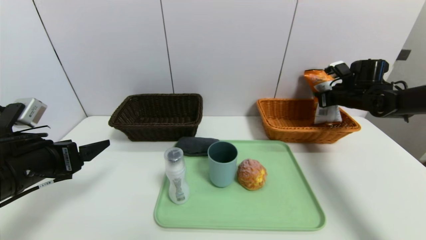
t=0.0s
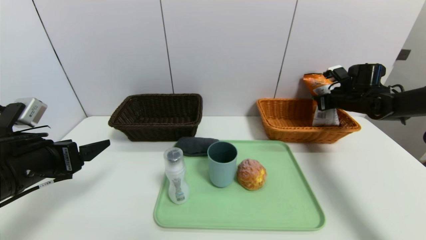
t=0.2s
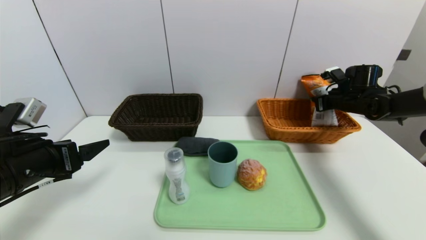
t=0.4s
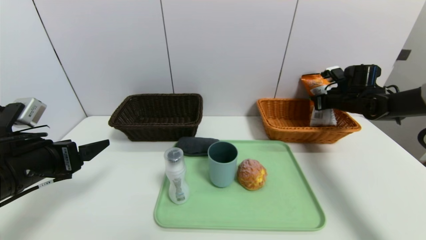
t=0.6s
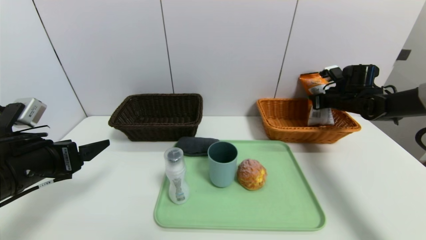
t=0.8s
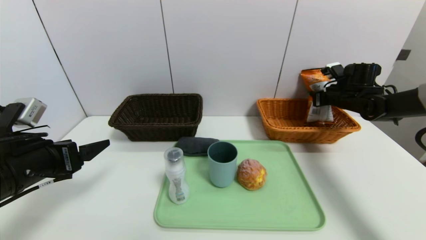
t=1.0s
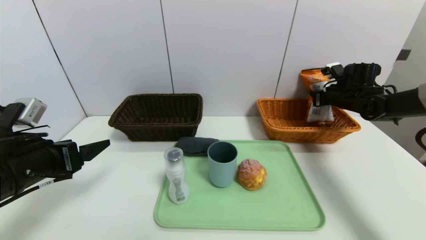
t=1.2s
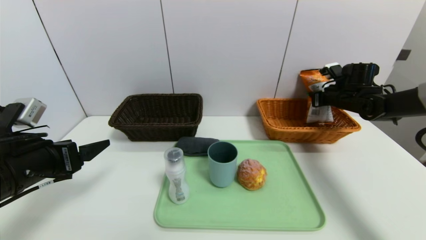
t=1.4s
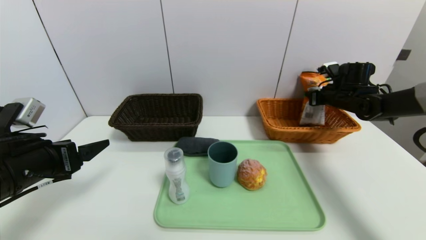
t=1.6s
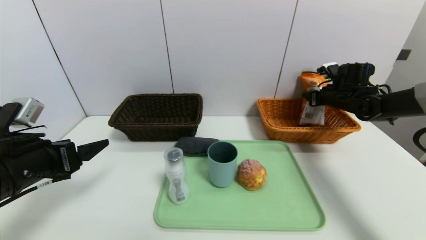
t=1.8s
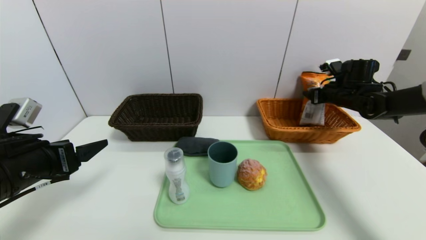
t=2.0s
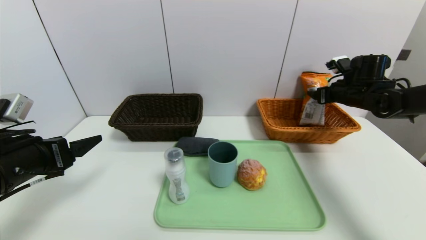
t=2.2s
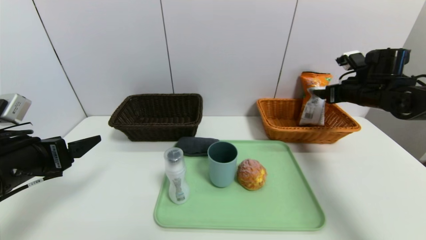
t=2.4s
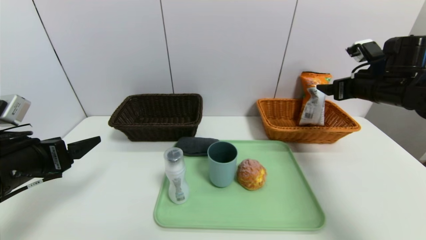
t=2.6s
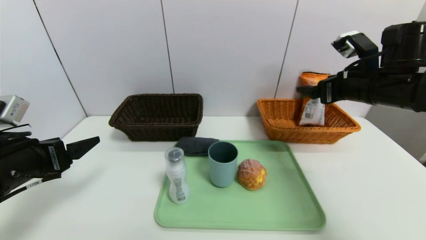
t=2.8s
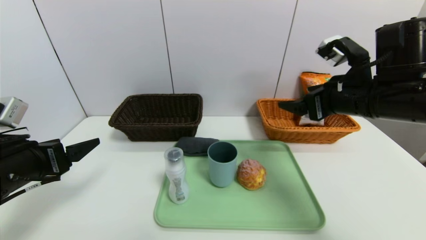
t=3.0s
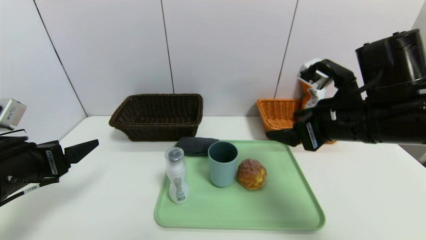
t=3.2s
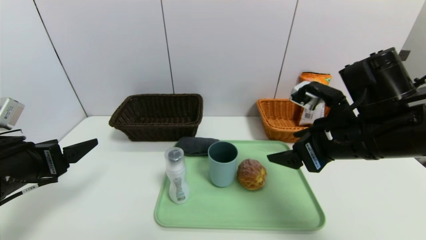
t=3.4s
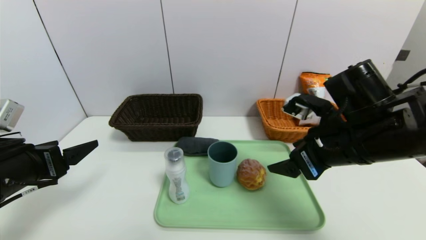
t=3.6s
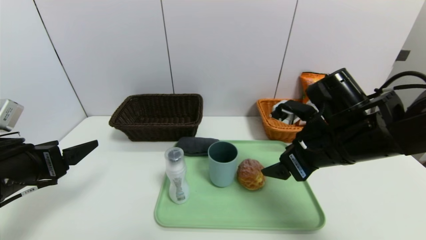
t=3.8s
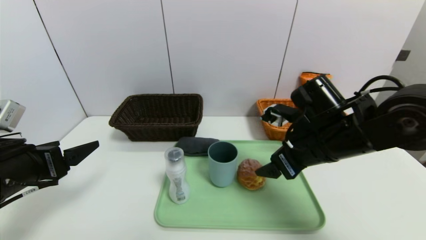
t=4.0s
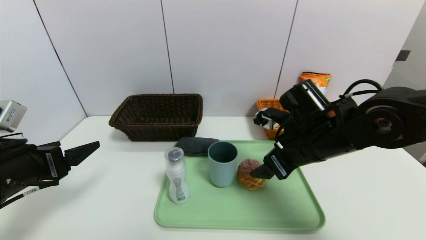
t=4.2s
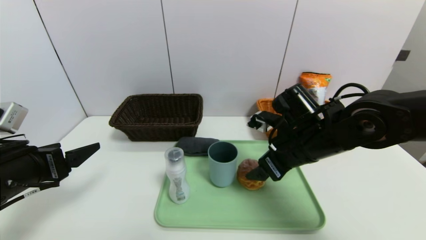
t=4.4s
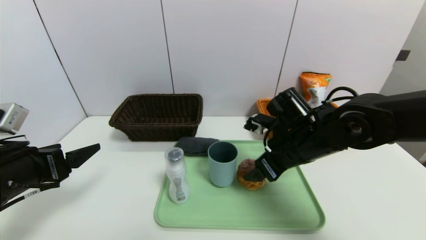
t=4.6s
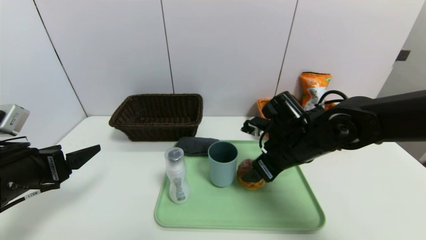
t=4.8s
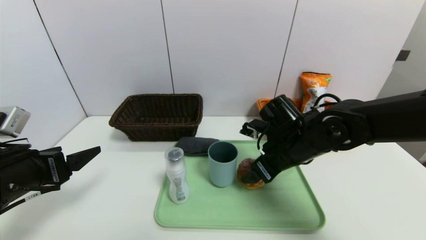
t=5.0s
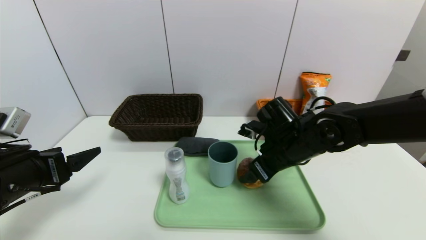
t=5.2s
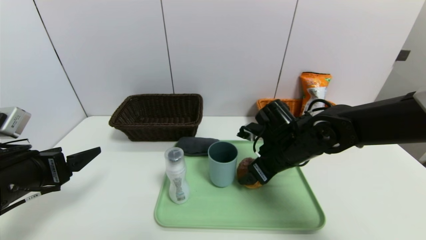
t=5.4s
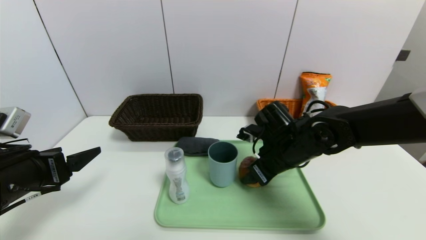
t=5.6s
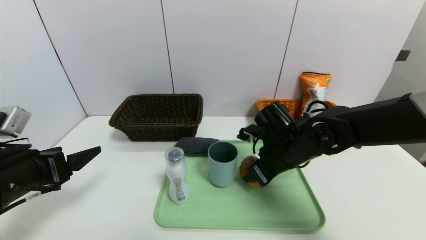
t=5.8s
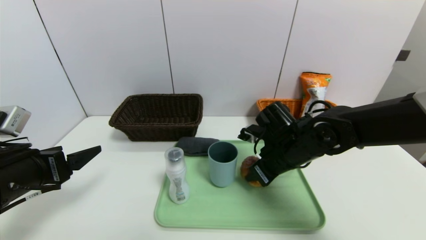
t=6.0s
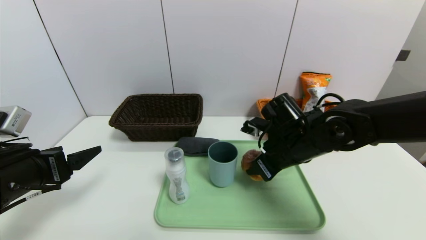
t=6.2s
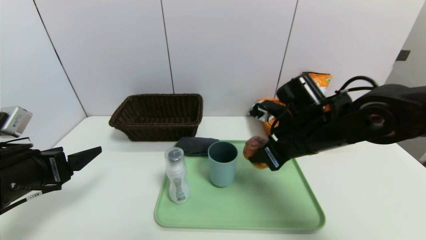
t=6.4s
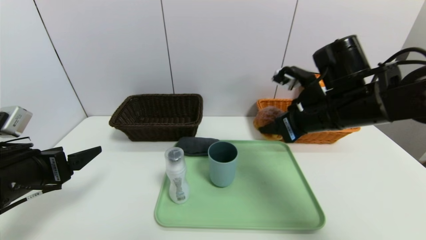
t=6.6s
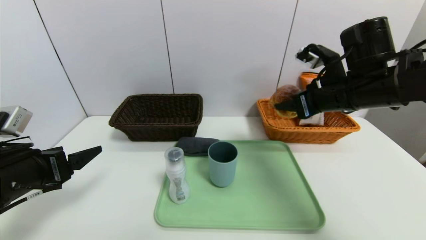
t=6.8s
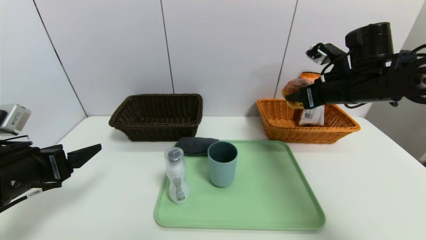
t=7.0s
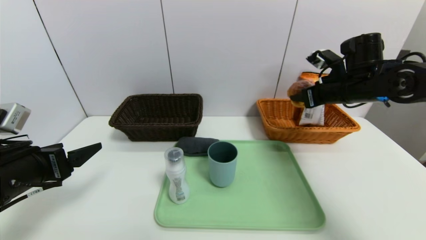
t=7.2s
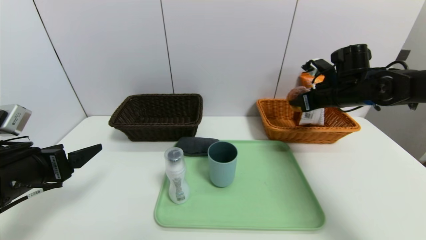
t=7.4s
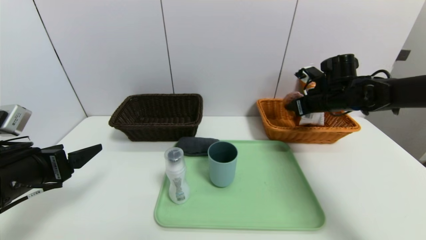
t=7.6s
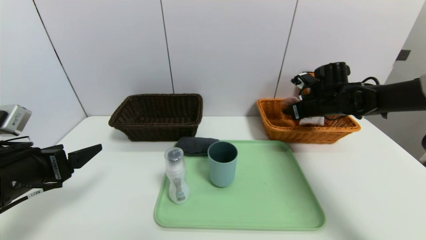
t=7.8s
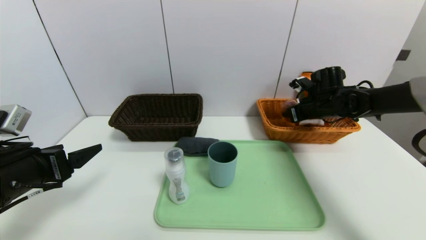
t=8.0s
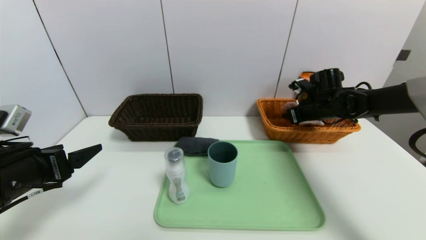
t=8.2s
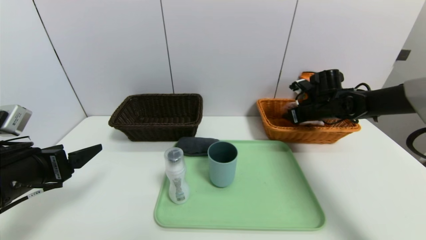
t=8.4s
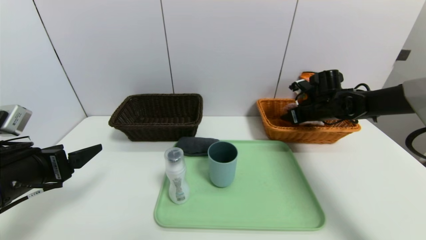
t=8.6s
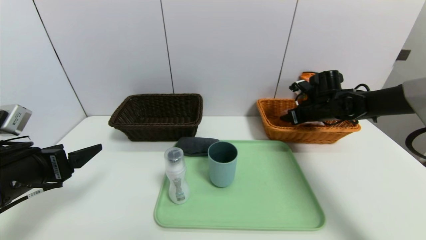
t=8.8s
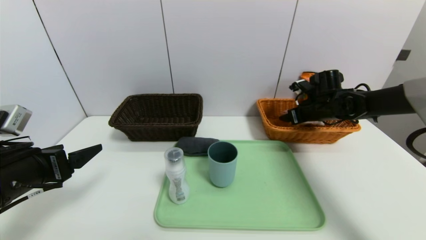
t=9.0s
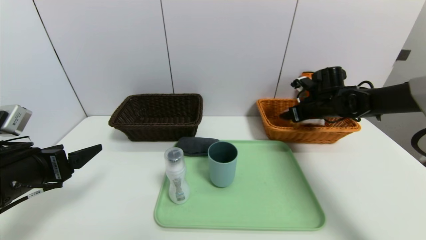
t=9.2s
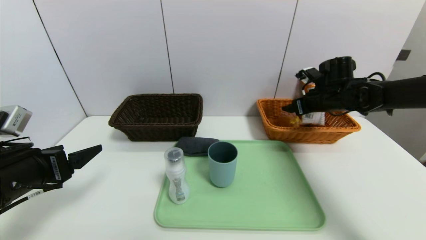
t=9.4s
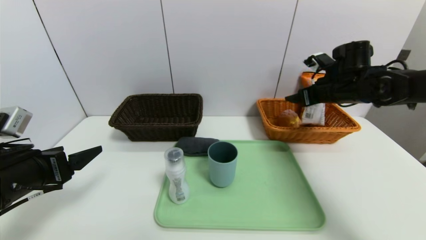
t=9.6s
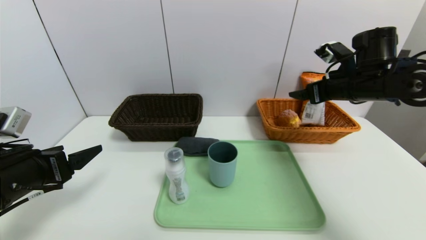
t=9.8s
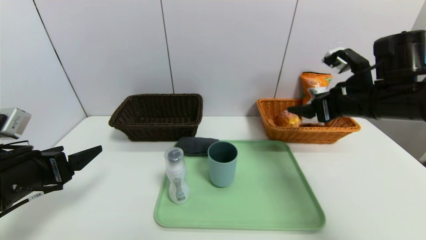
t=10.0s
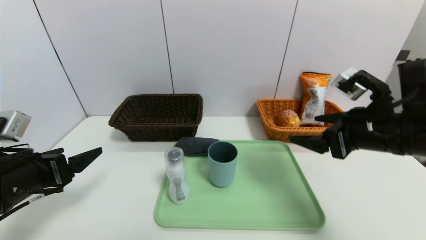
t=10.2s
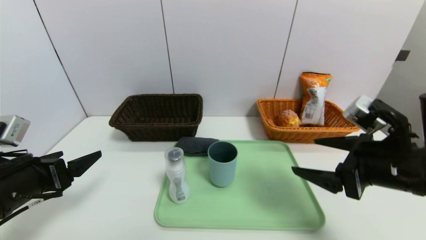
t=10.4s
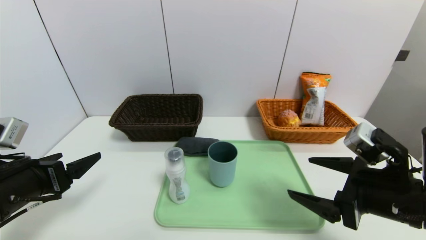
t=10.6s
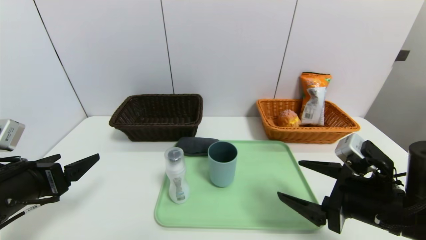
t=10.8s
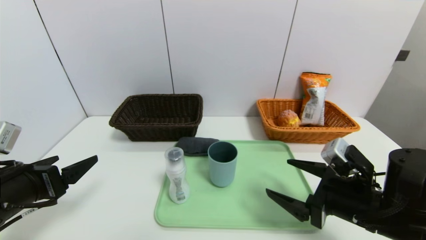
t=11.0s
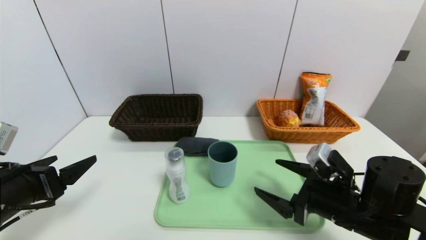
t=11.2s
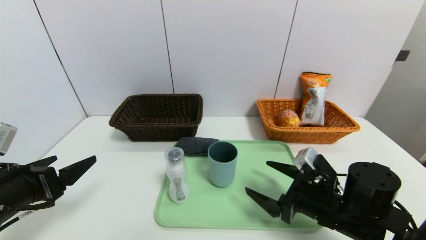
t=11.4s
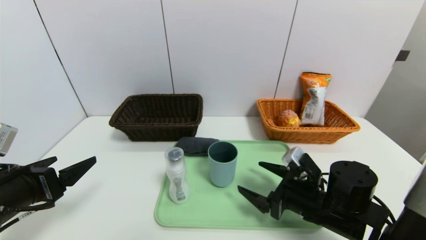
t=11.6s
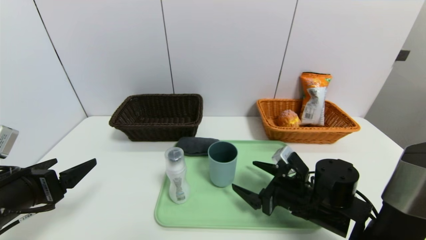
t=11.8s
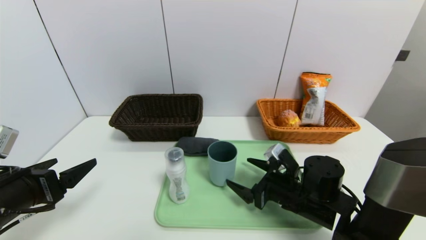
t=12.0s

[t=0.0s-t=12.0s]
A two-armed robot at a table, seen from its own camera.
Task of the whole recording: place the food in the right basket with the right gripper, and place the non food items in the left basket with the left gripper.
Step, t=0.0s to t=2.6s: Grasp the cookie and put it in the right basket.
Step, t=2.8s to t=9.8s: Grasp the round bread and put it in the right basket.
t=0.0s to t=1.6s: The right gripper opens up.
t=1.6s to t=3.0s: The right gripper is displaced backward, to the left and upward by some 25 cm, and opens up.
t=3.0s to t=4.4s: The right gripper heads downward and to the left, covering some 10 cm.
t=4.4s to t=6.0s: The right gripper closes up.
t=6.0s to t=7.6s: The right gripper heads to the right and forward, covering approximately 20 cm.
t=7.6s to t=9.0s: The right gripper opens.
t=9.0s to t=10.4s: The right gripper shifts about 25 cm backward.
t=10.4s to t=12.0s: The right gripper shifts about 20 cm downward, to the left and forward.

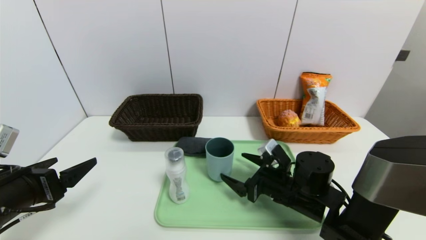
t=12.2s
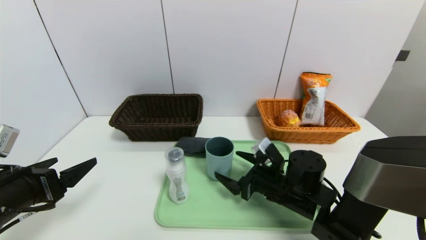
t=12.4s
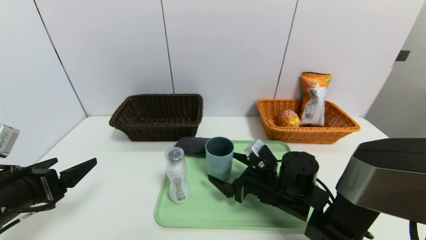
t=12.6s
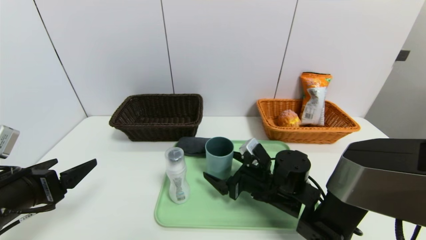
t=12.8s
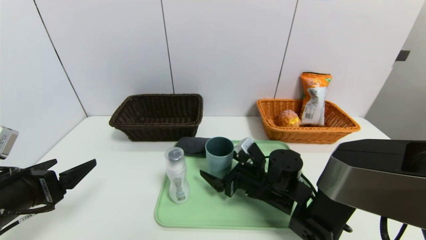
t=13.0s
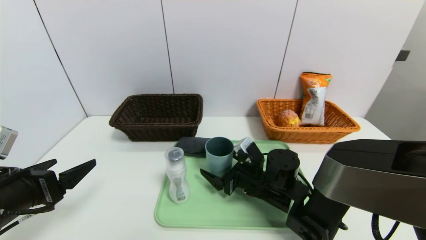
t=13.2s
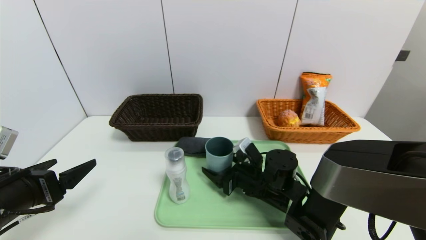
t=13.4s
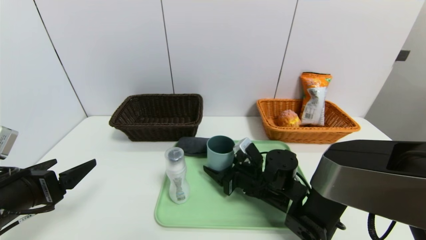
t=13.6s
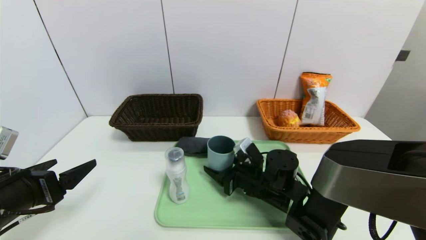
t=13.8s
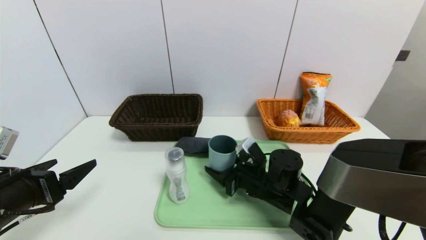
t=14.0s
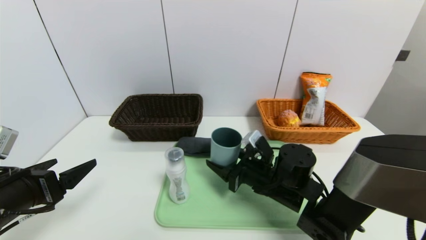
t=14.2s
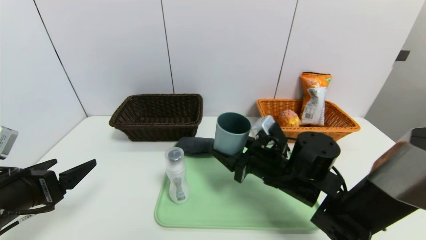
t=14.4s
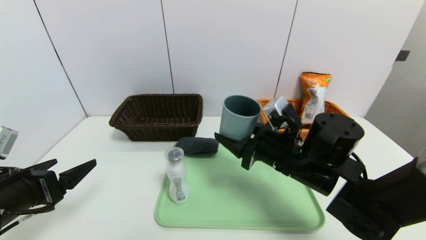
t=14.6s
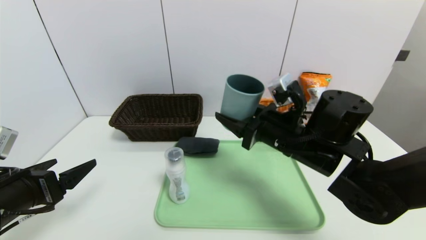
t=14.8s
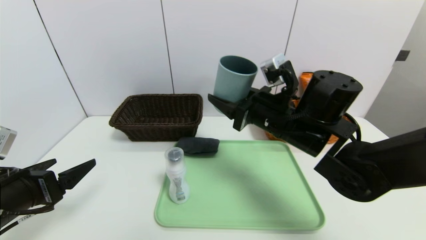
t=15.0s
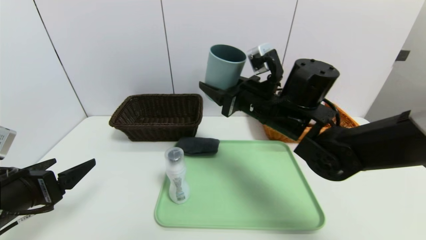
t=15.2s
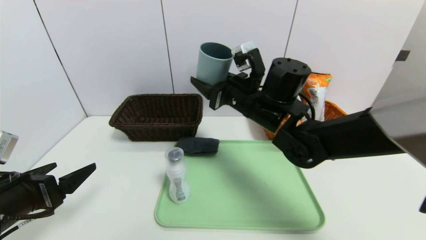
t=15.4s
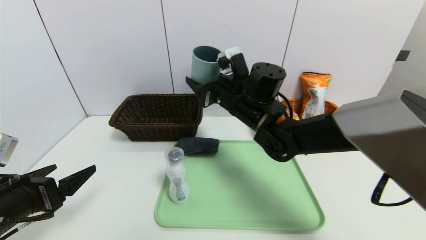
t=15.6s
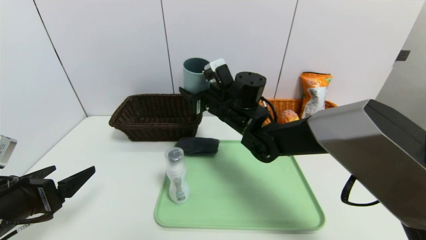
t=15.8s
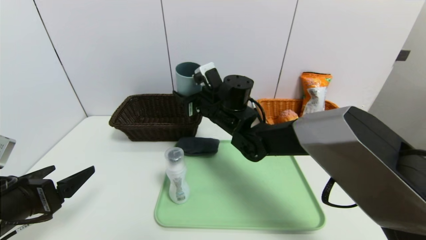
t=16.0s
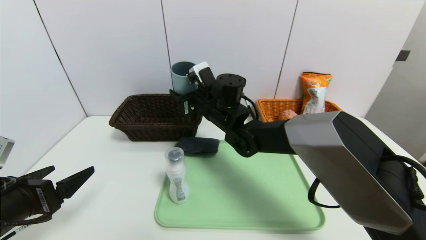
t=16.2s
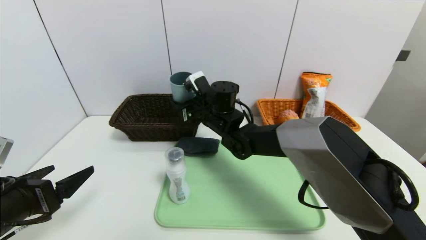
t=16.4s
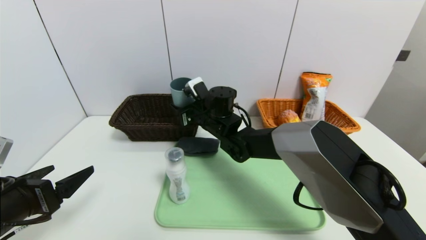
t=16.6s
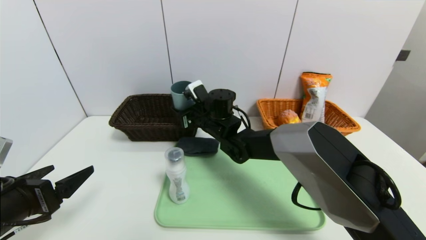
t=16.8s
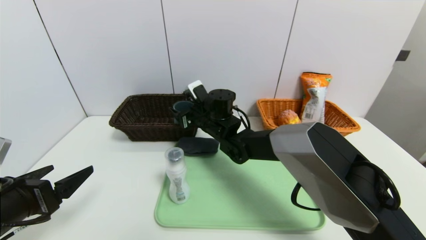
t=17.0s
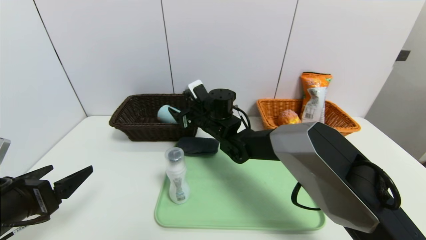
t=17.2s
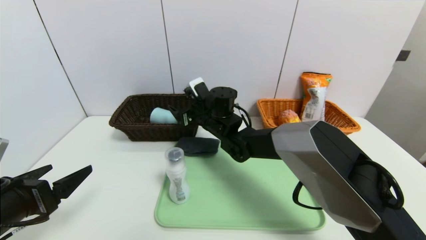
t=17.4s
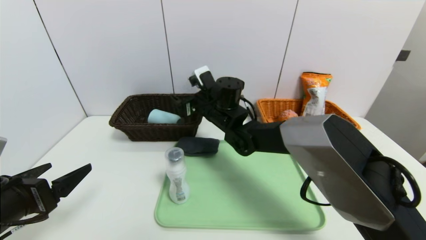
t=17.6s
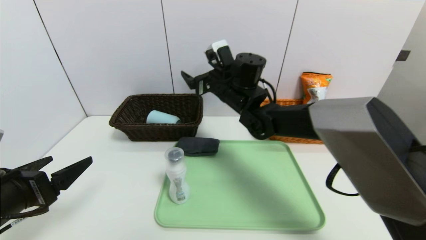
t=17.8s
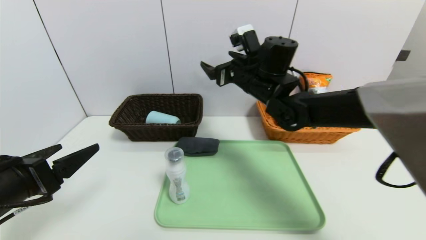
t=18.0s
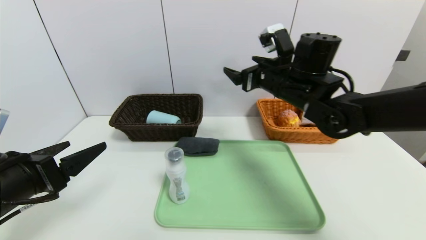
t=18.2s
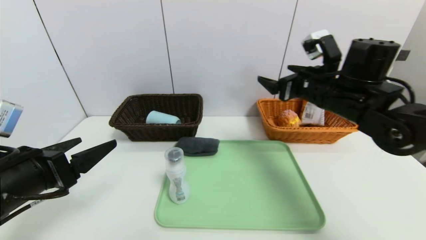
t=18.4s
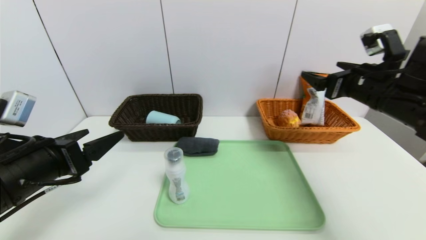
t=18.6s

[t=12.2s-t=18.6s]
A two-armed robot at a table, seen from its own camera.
Task of the whole recording: place the food in the right basket with the right gripper, and place the non food items in the left basket with the left gripper.
t=12.2s to t=13.8s: The right gripper shifts by some 5 cm, and closes up.
t=13.8s to t=15.4s: The right gripper travels upward by about 20 cm.
t=15.4s to t=17.0s: The right gripper shifts roughly 15 cm to the left, downward and forward.
t=17.0s to t=18.6s: The left gripper ends up approximately 5 cm from where it was. Meanwhile the right gripper moves to the right and backward, roughly 30 cm.
